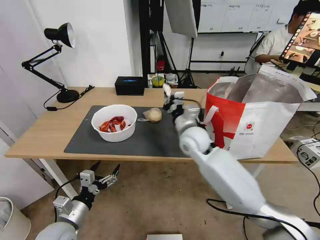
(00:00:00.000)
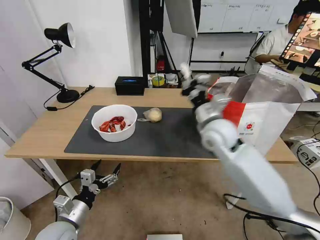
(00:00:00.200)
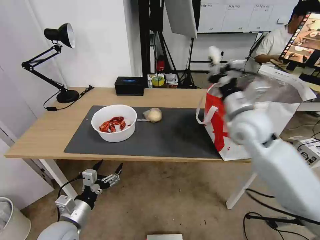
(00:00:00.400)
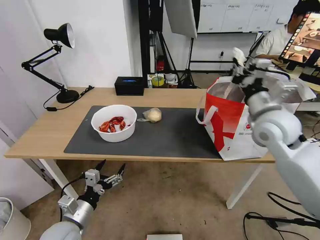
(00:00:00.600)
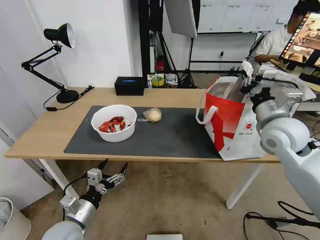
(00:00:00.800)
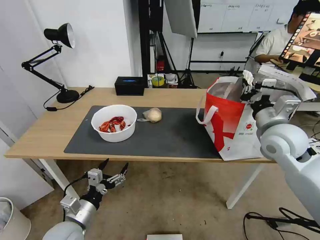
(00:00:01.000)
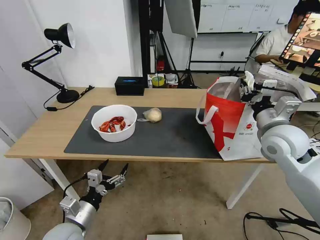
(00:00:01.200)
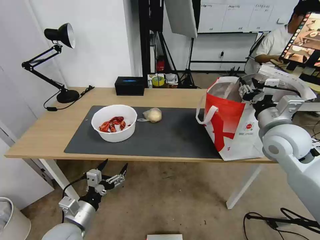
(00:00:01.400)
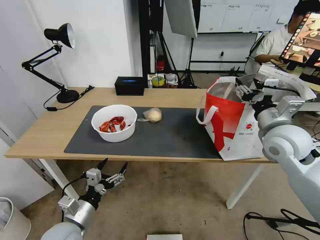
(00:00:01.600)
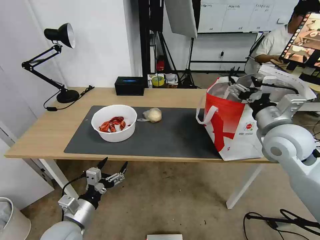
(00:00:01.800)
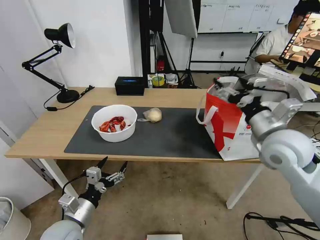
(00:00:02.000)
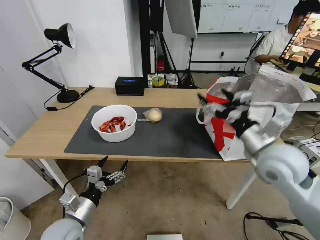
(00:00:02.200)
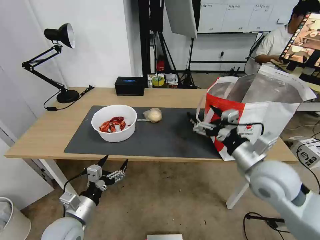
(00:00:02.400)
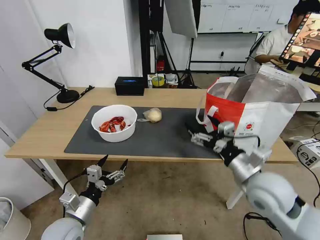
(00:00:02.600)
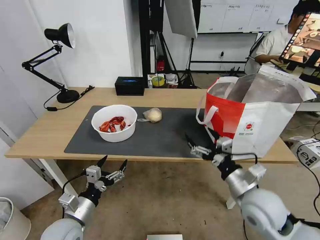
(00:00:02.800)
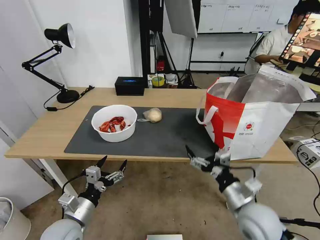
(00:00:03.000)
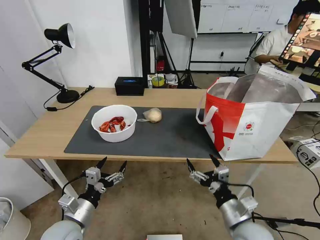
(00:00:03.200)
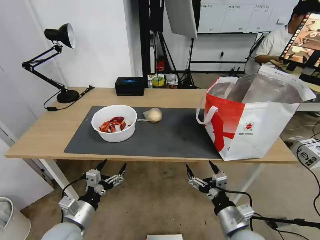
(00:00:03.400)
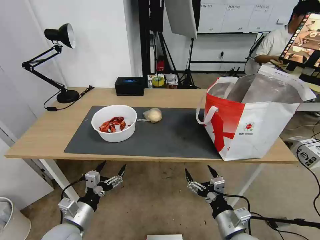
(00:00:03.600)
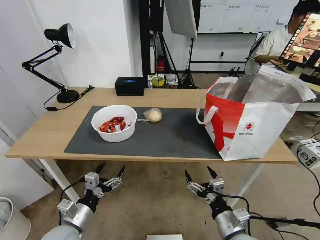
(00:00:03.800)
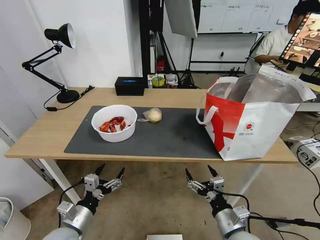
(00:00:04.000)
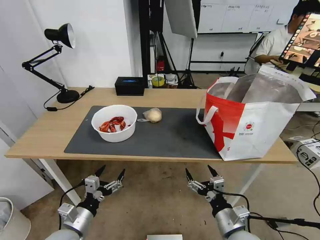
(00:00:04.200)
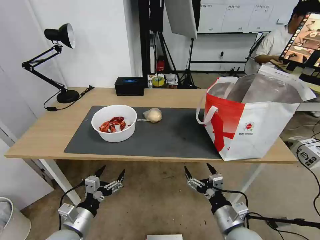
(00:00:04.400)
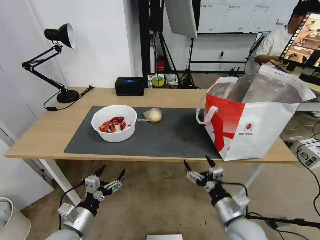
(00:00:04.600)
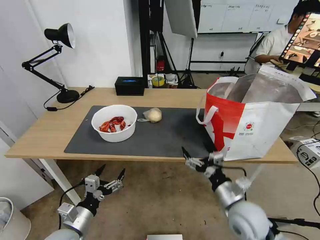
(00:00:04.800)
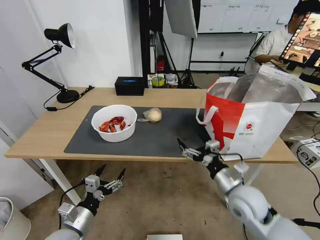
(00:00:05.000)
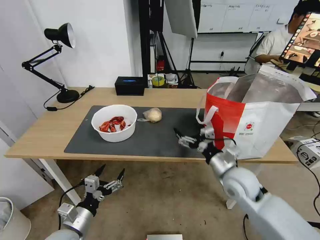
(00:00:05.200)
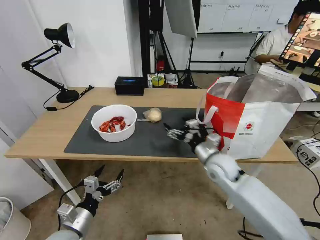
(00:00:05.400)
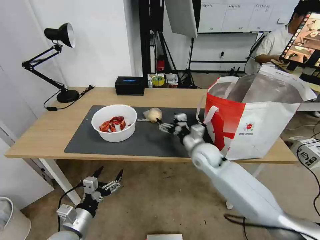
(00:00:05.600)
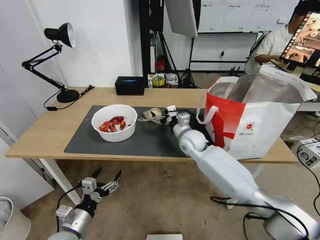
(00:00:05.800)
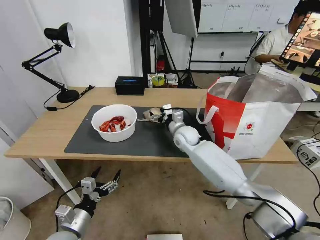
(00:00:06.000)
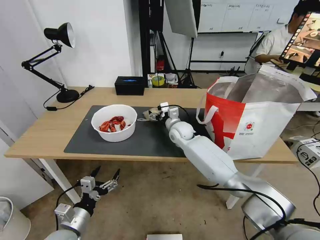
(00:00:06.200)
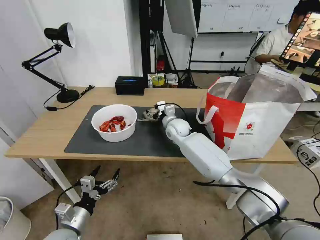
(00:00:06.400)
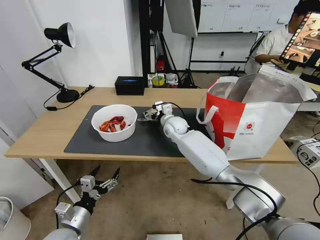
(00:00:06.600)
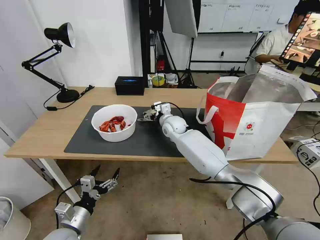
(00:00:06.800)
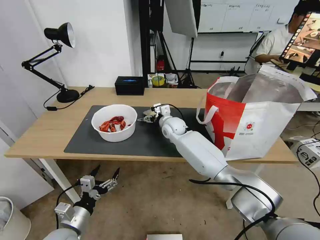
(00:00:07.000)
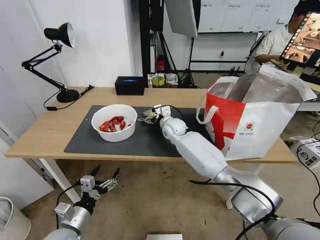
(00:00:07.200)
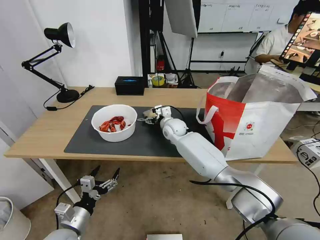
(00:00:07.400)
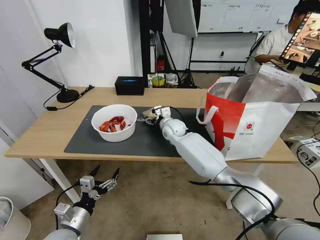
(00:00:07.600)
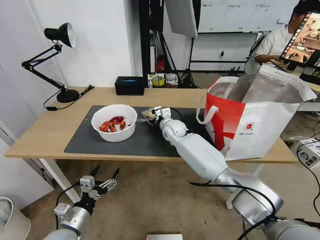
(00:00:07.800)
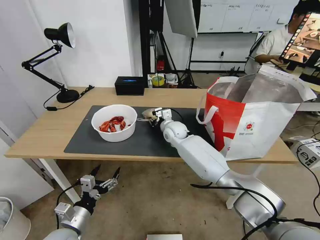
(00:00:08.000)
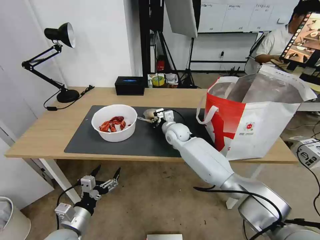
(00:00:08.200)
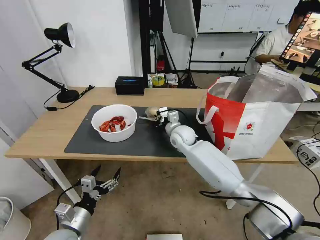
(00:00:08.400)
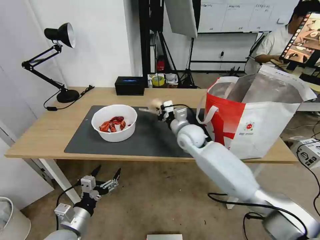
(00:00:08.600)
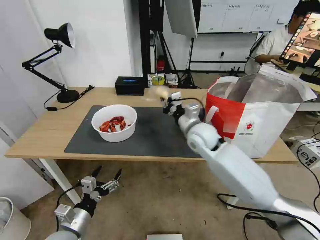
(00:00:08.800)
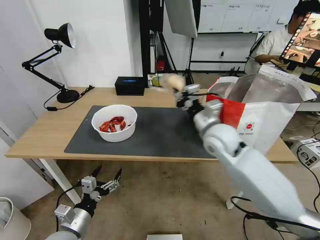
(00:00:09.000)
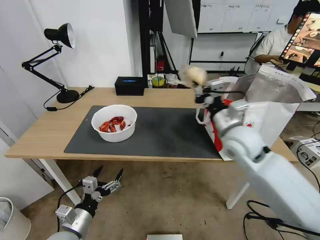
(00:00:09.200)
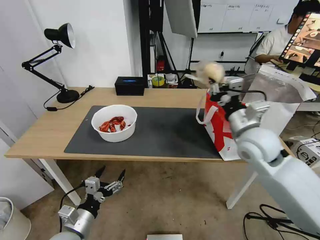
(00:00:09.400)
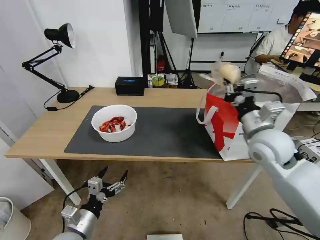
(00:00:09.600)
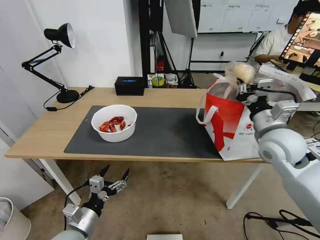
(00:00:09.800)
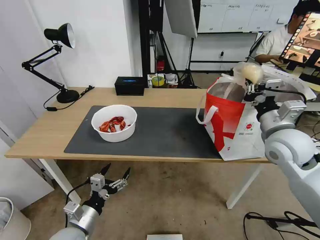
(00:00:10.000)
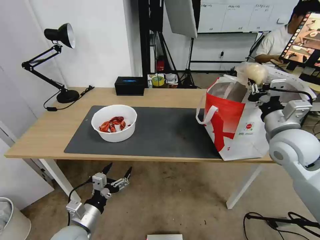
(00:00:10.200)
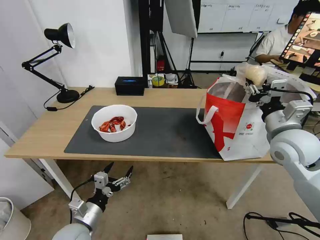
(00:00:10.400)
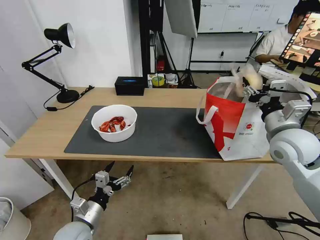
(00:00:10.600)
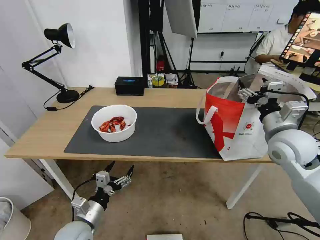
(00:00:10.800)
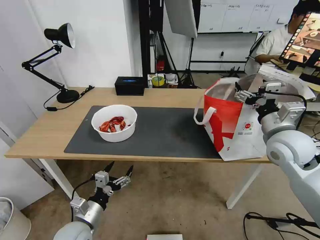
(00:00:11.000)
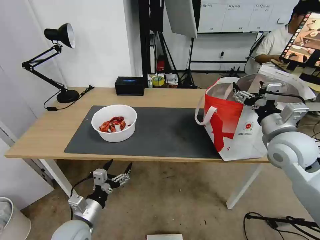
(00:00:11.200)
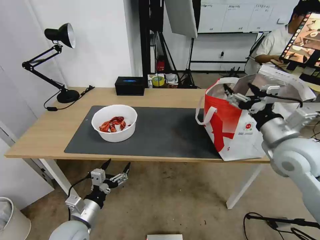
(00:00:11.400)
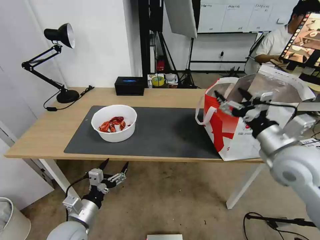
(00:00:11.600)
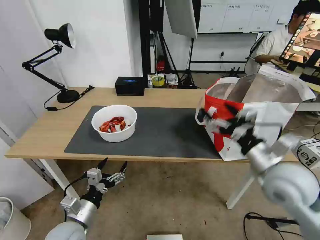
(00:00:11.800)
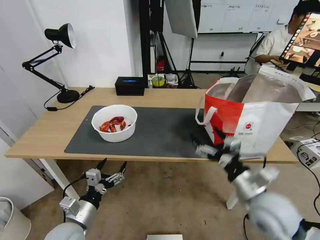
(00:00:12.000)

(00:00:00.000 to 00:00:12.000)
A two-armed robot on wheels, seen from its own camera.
Task of the whole recording: Pick up the trash from the table and place it into the takeout bag.
00:00:00.000 - 00:00:01.600: The right gripper moves to the right, approximately 20 cm, and opens its fingers.
00:00:01.600 - 00:00:03.000: The right gripper moves downward, backward and to the left, some 25 cm.
00:00:03.000 - 00:00:04.400: The right gripper goes about 5 cm downward.
00:00:04.400 - 00:00:06.000: The right gripper goes about 35 cm forward.
00:00:06.000 - 00:00:07.600: The right gripper moves approximately 5 cm.
00:00:07.600 - 00:00:09.000: The right gripper moves backward, to the right and upward, approximately 25 cm, and closes up.
00:00:09.000 - 00:00:10.400: The right gripper heads to the right, covering approximately 15 cm, and opens.
00:00:10.400 - 00:00:12.000: The right gripper heads backward, downward and to the left, covering roughly 15 cm, and opens.

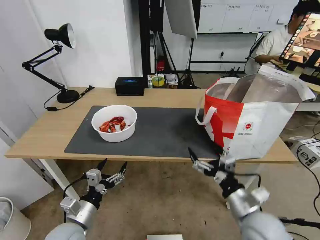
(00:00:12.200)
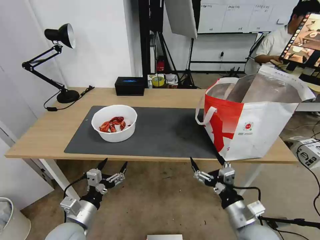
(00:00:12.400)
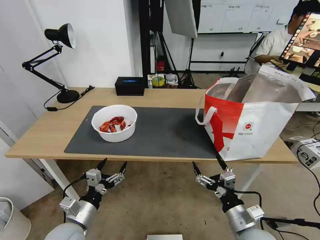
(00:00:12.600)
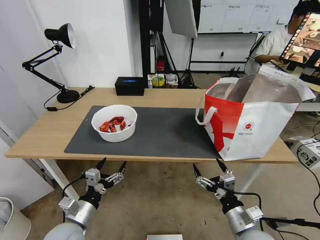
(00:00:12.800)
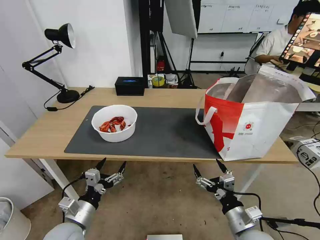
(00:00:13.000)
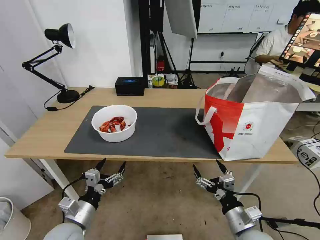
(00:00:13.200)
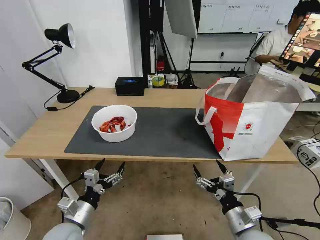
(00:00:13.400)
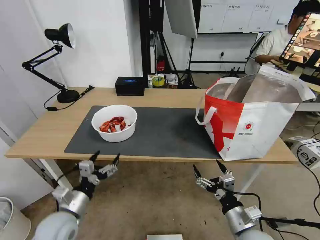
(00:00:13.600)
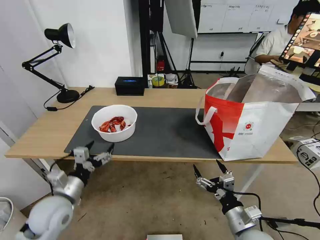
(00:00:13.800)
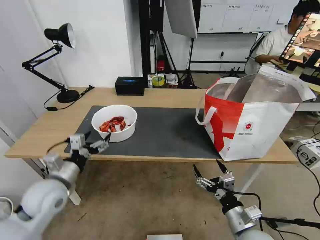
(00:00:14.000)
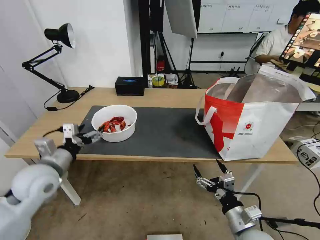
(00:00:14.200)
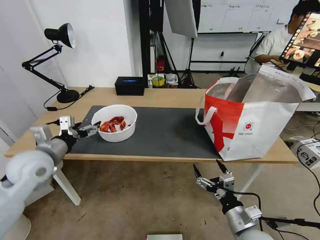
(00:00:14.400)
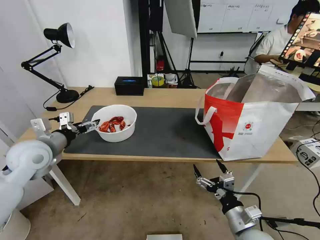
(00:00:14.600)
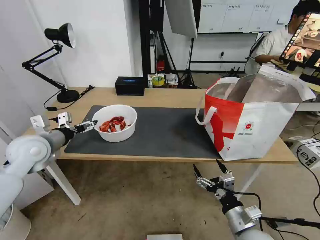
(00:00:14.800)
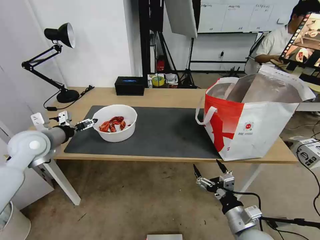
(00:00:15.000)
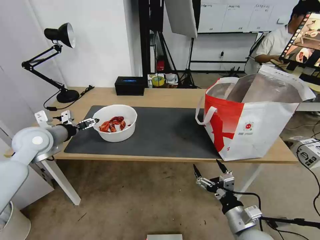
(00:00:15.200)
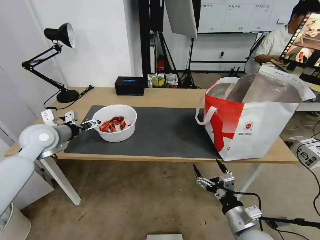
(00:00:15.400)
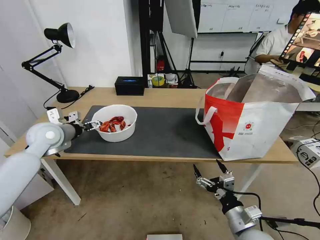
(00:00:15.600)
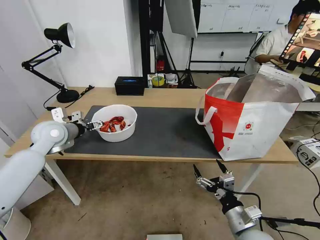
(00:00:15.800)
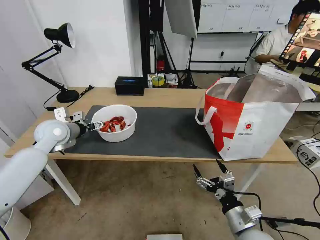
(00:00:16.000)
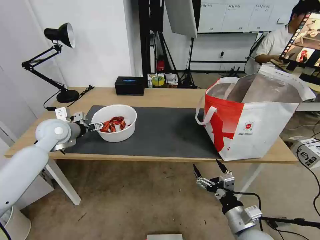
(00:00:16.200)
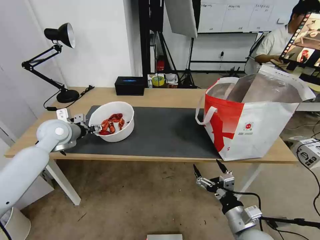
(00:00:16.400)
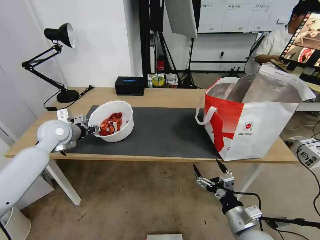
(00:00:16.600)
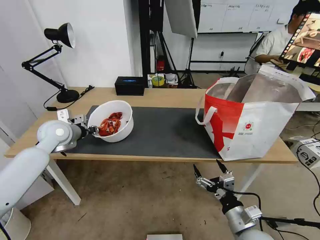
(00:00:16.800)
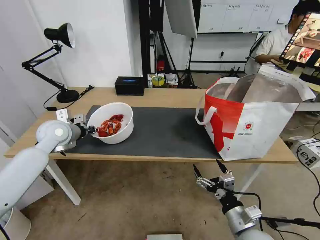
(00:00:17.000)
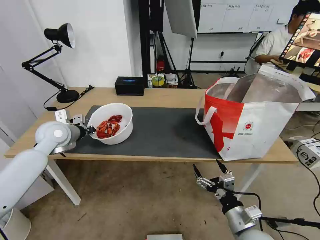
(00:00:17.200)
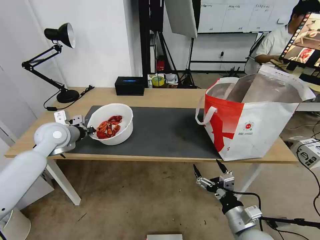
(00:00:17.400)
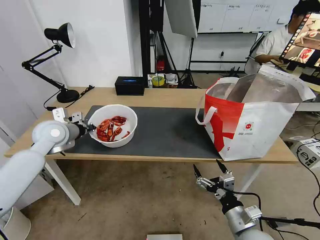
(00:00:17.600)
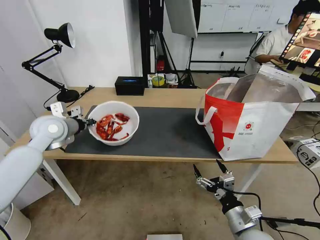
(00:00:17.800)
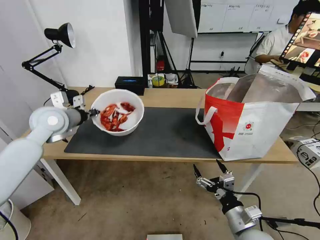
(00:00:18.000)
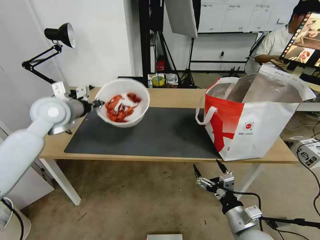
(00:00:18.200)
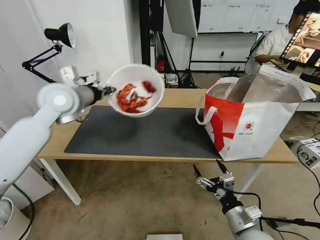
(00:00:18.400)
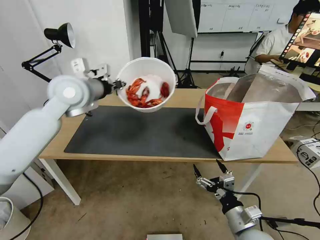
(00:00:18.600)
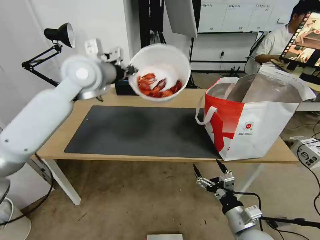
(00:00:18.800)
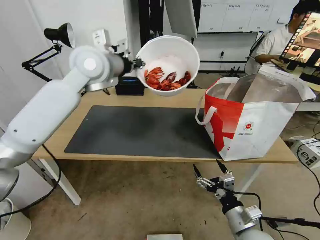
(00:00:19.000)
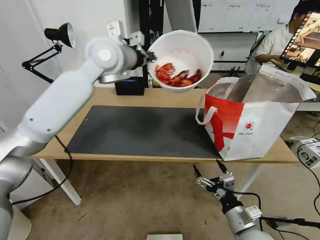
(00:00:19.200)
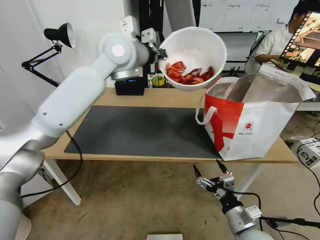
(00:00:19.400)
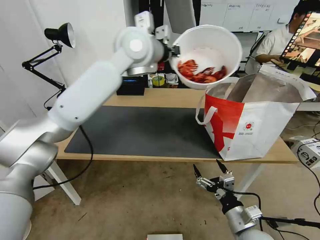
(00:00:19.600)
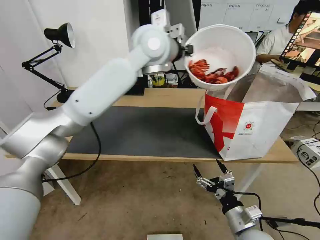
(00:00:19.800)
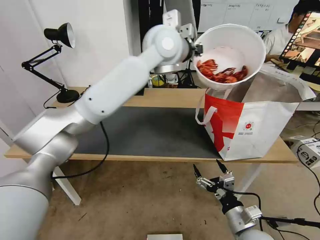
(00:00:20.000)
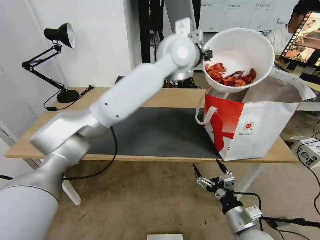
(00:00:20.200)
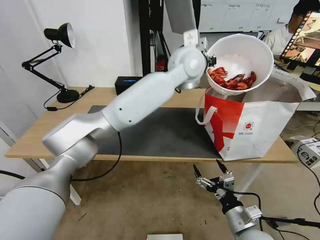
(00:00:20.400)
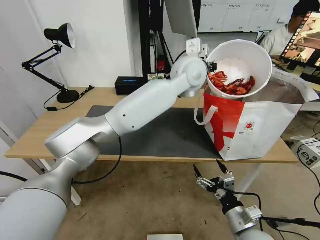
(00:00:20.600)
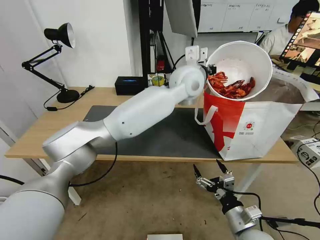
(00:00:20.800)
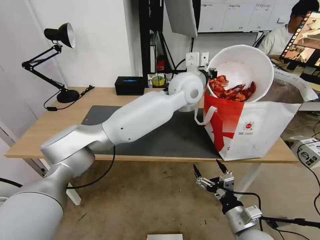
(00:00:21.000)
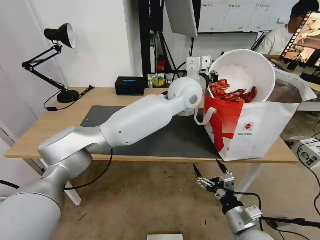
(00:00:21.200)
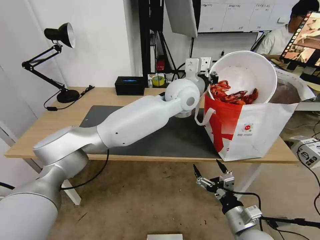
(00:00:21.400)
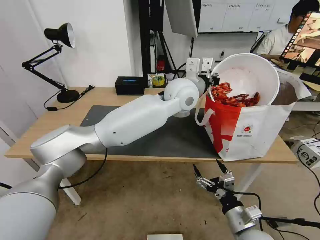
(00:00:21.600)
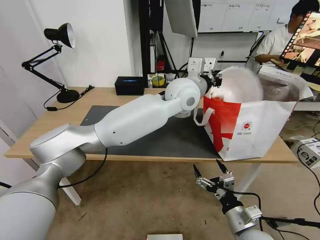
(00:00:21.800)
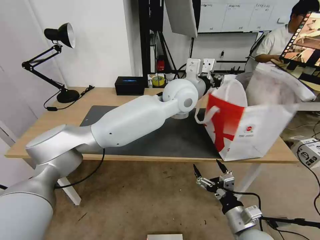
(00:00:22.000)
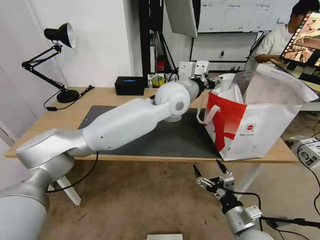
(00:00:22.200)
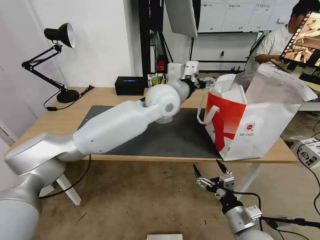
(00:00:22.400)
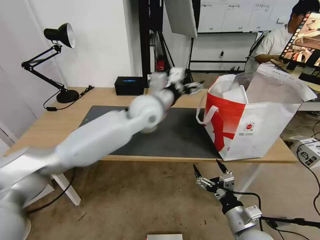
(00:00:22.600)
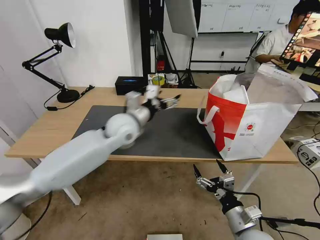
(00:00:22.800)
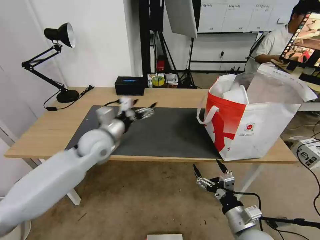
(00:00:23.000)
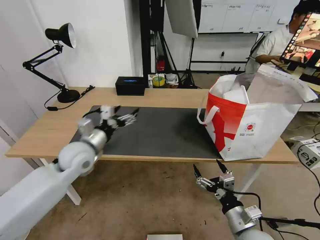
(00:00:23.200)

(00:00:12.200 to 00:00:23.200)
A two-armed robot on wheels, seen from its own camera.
Task of the whole recording: Pick up the trash from the table and place it into the takeout bag.
00:00:12.200 - 00:00:13.800: The right gripper travels downward by some 5 cm, while the left gripper travels upward and forward by roughly 10 cm.
00:00:13.800 - 00:00:15.400: The left gripper is displaced forward and upward by about 20 cm.
00:00:15.400 - 00:00:17.000: The left gripper closes up.
00:00:17.000 - 00:00:18.400: The left gripper moves upward and to the right, about 15 cm.
00:00:18.400 - 00:00:20.000: The left gripper moves to the right, approximately 30 cm.
00:00:20.000 - 00:00:21.600: The left gripper is displaced downward by roughly 10 cm.
00:00:21.600 - 00:00:23.200: The left gripper shifts approximately 35 cm to the left and downward, and opens.
